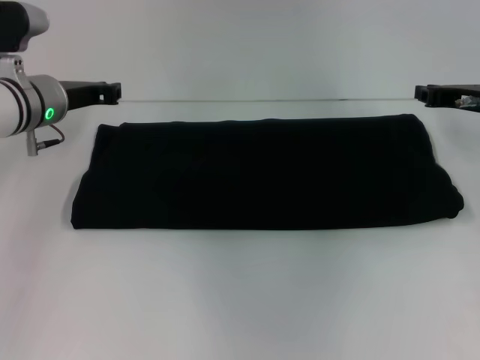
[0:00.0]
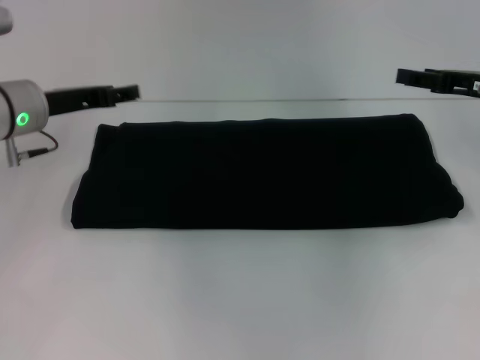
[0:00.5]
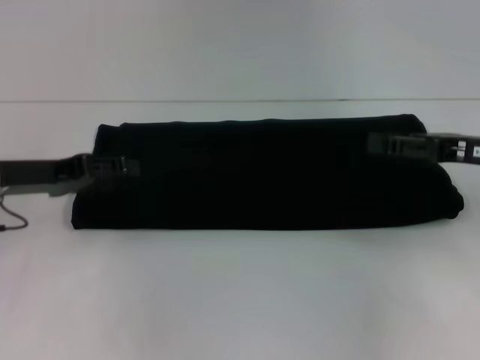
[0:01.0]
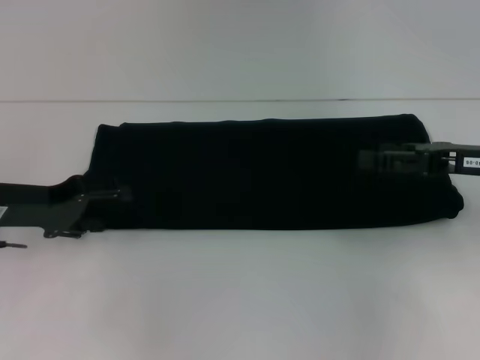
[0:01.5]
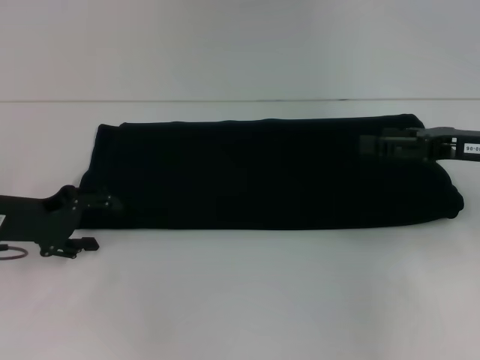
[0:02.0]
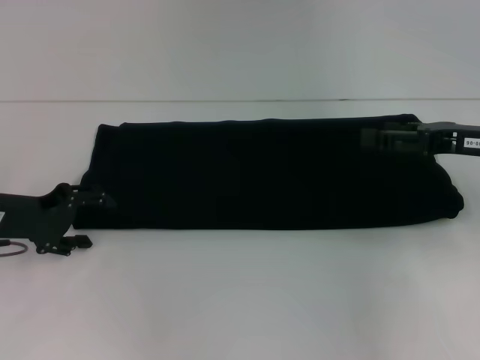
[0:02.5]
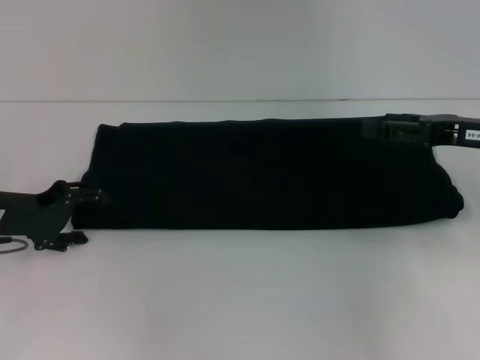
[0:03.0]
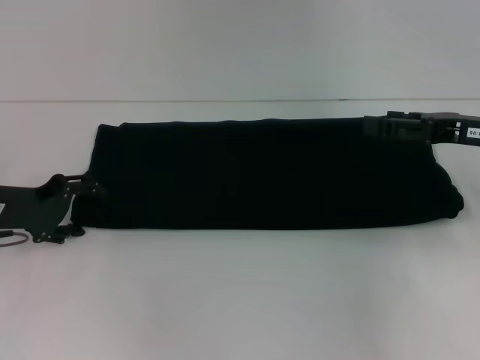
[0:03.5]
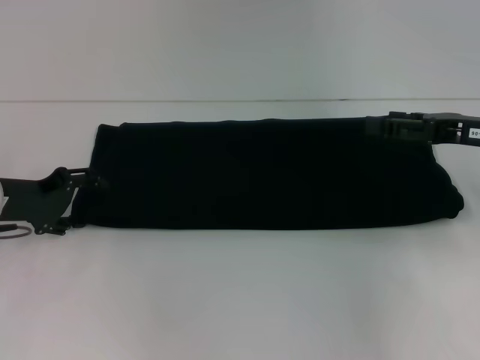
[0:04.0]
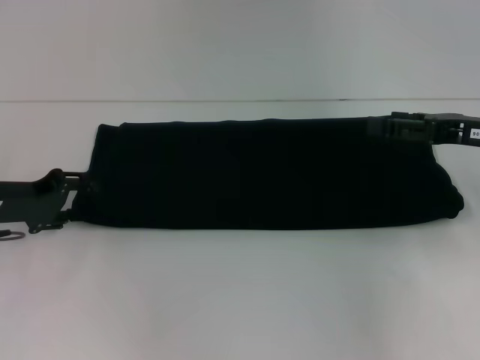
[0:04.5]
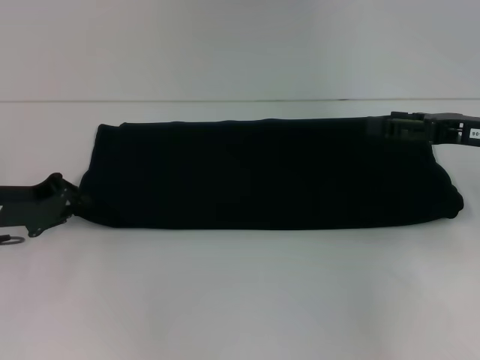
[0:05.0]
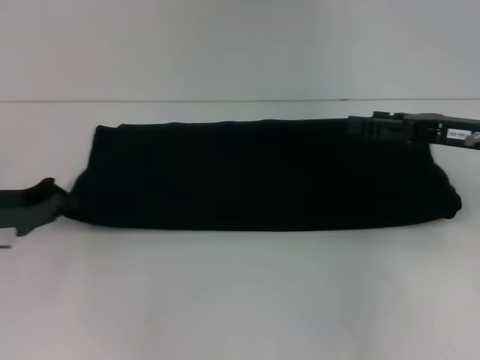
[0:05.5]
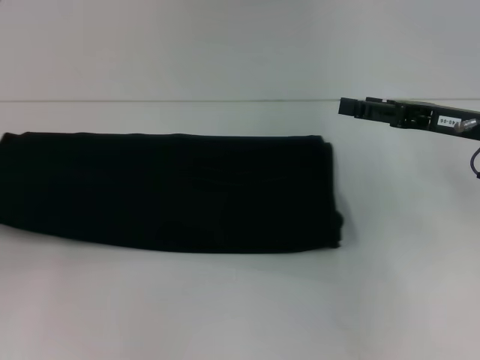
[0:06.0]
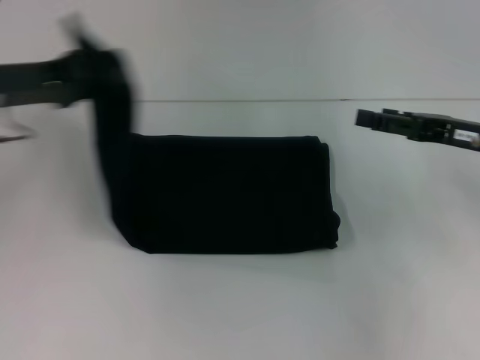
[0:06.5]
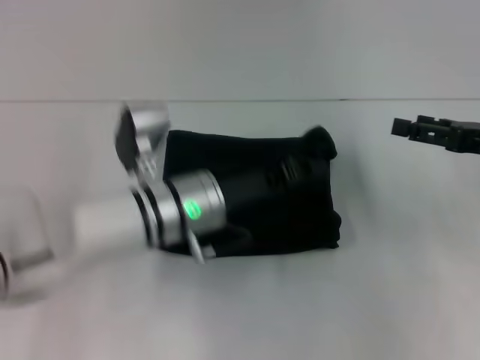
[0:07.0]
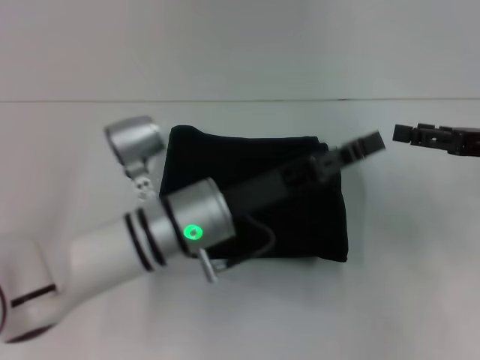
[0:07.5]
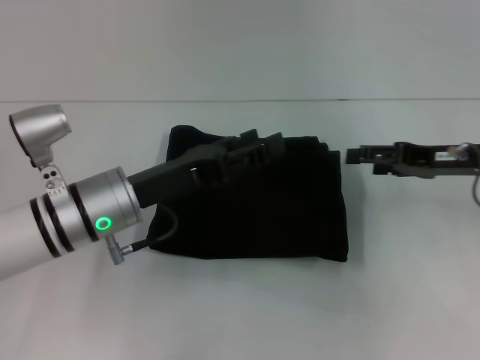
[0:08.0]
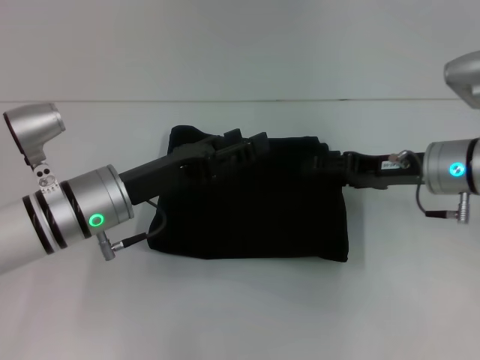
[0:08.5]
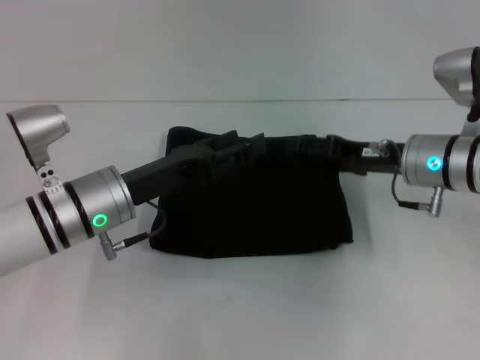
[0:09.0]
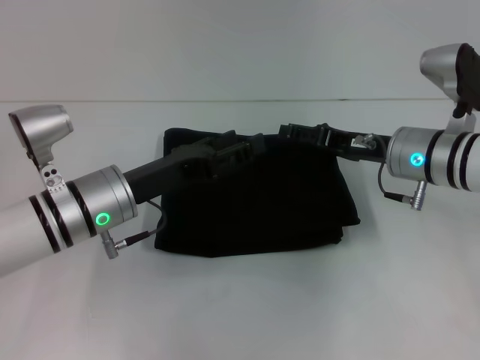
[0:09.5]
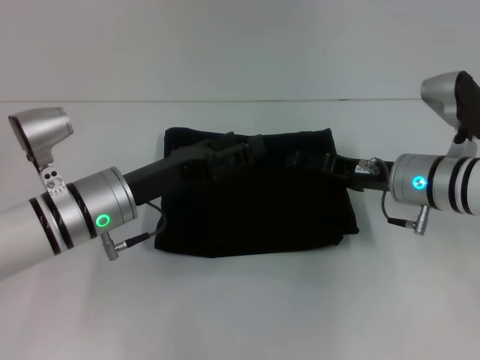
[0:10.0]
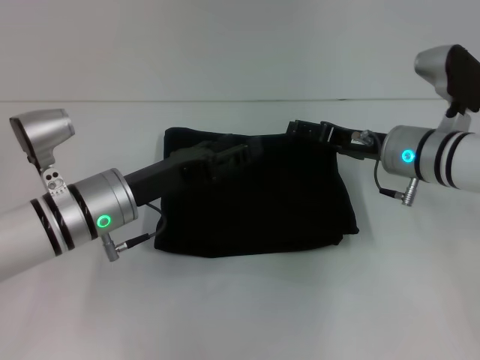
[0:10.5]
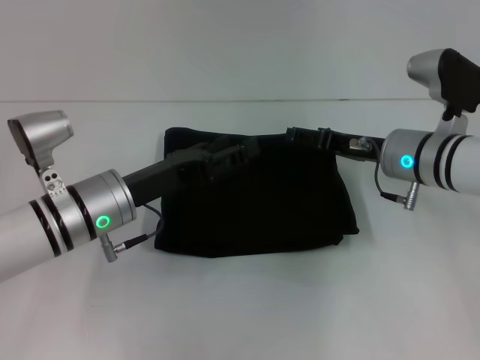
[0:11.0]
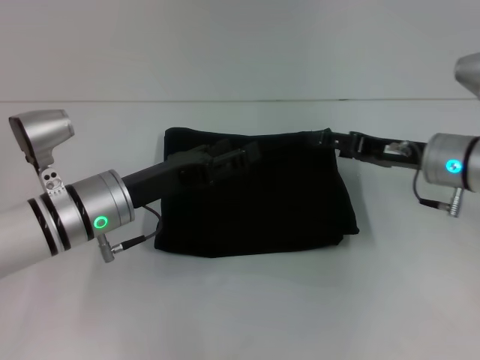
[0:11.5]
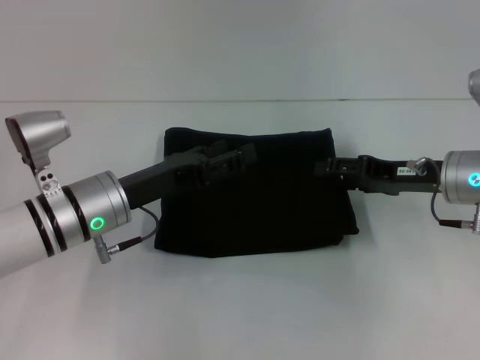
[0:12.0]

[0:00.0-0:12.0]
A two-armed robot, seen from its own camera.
Step, 0:00.0 to 0:07.0: Fold the clothes with your left hand.
0:00.0 to 0:02.0: The right gripper goes about 10 cm backward, and opens up, while the left gripper heads backward and to the left, covering about 15 cm, and opens its fingers.
0:02.0 to 0:04.0: The grippers move only a little.
0:04.0 to 0:06.0: The left gripper moves to the left and backward, roughly 15 cm, and closes its fingers.
0:06.0 to 0:08.0: The left gripper shifts roughly 25 cm to the right, and opens.
0:08.0 to 0:10.0: The right gripper moves to the left, about 10 cm.
0:10.0 to 0:12.0: The right gripper changes place by some 5 cm.

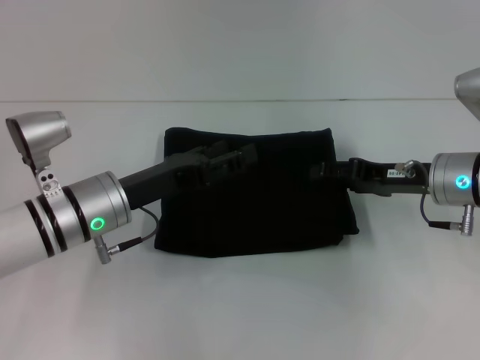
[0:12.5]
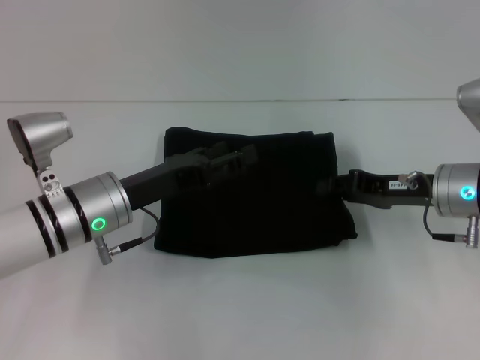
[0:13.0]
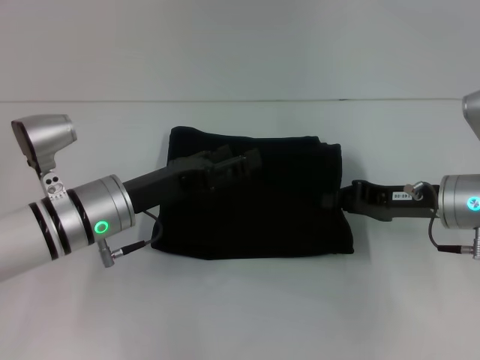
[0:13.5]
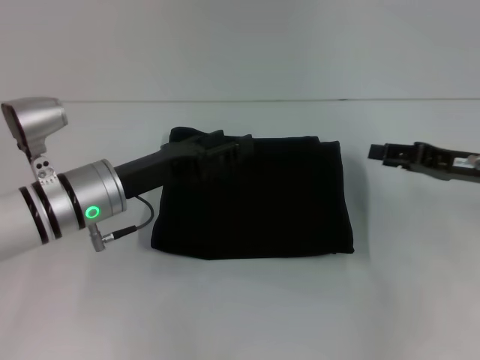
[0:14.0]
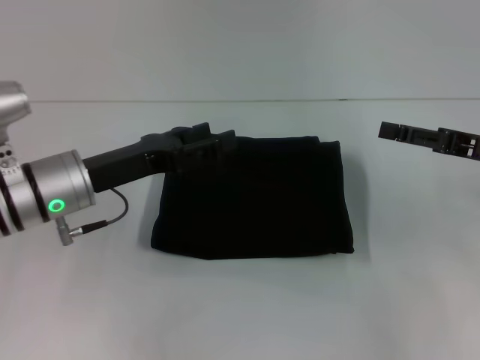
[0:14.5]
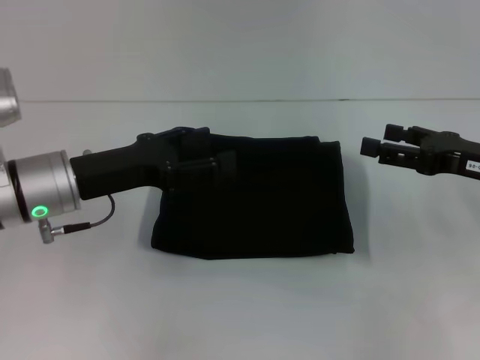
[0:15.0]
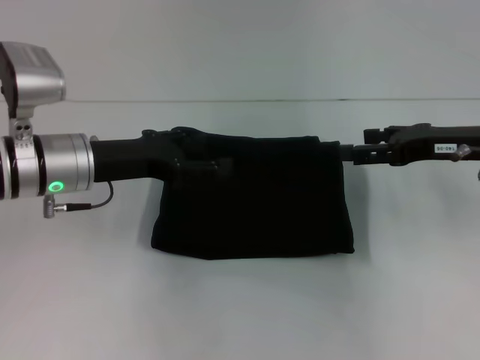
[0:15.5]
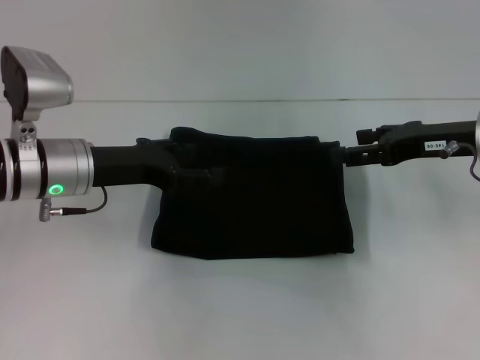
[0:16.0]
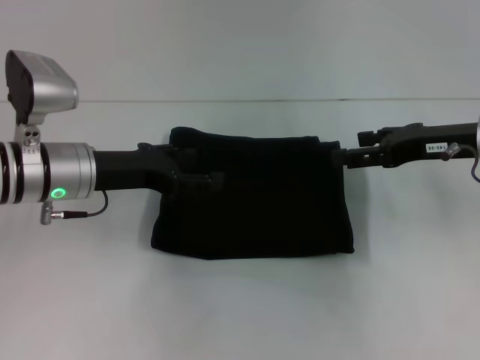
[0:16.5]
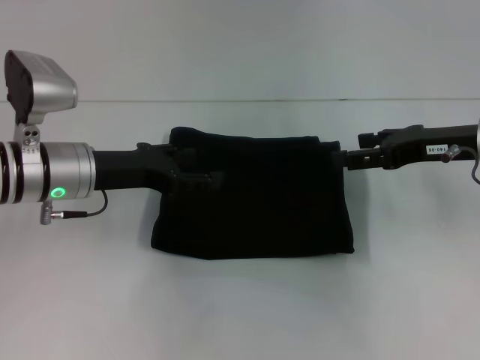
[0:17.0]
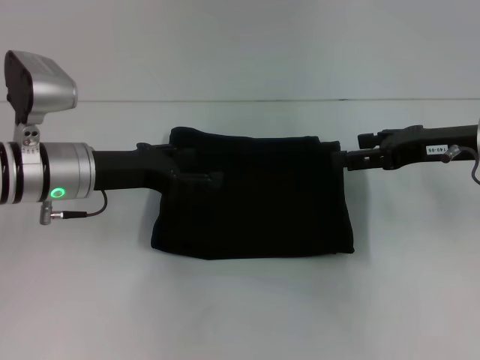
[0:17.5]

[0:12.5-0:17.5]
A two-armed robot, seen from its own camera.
0:12.5 to 0:15.0: The right gripper shifts some 5 cm to the right, and closes, then opens again. The left gripper moves about 5 cm.
0:15.0 to 0:17.5: The right gripper ends up some 5 cm from where it was.

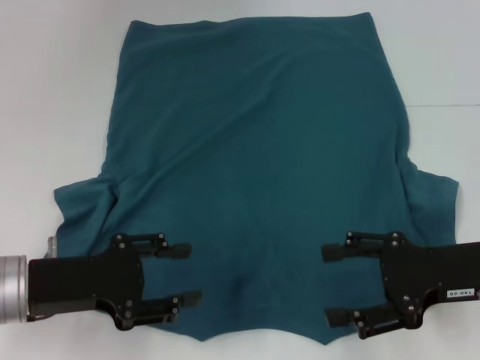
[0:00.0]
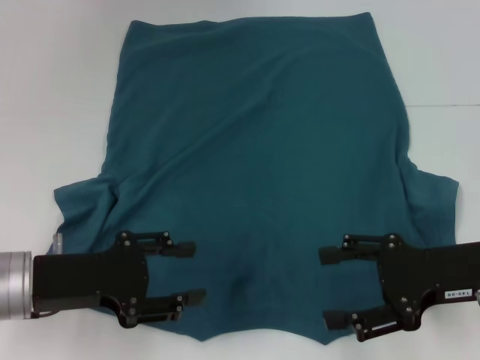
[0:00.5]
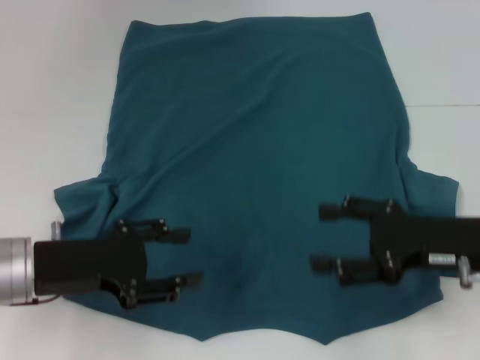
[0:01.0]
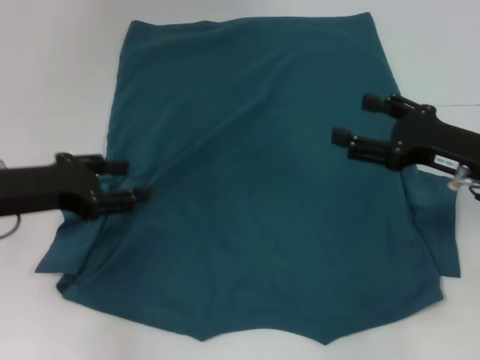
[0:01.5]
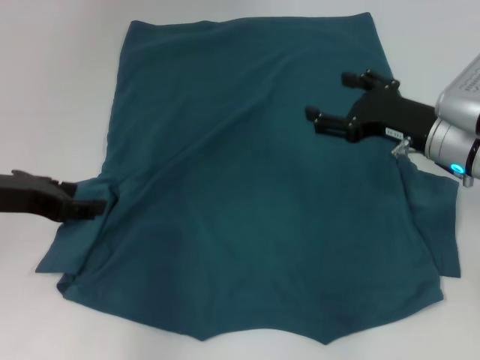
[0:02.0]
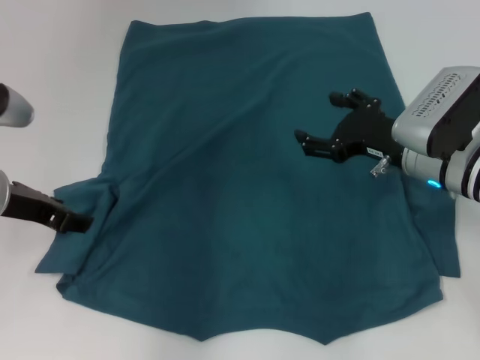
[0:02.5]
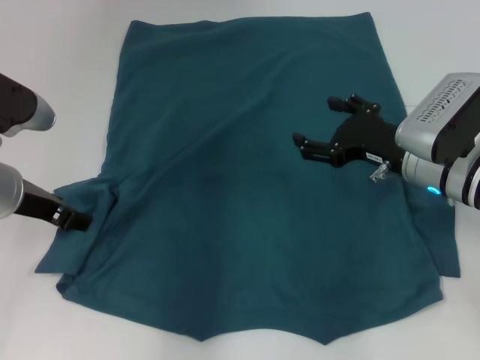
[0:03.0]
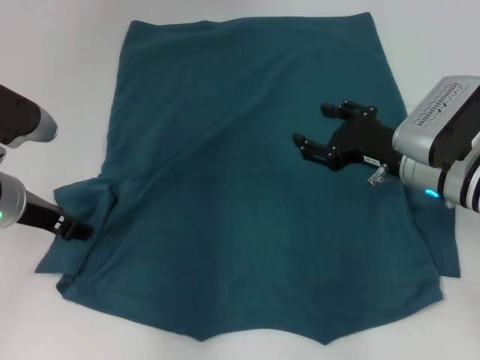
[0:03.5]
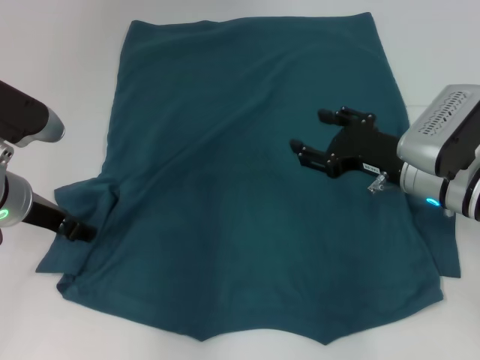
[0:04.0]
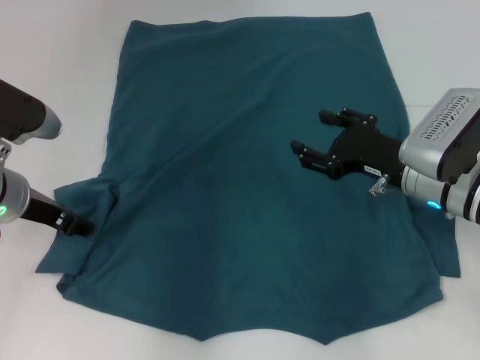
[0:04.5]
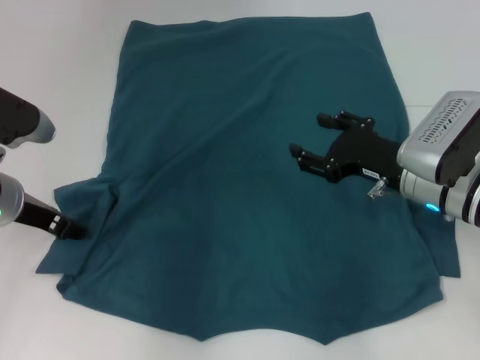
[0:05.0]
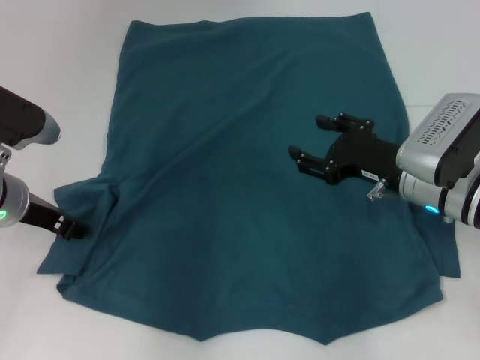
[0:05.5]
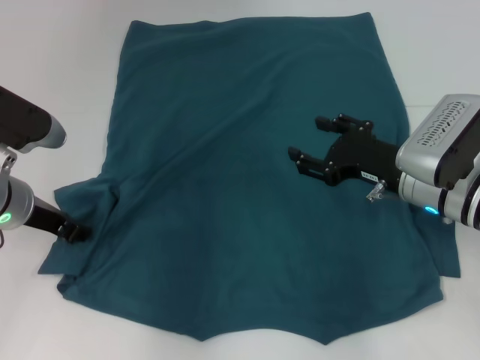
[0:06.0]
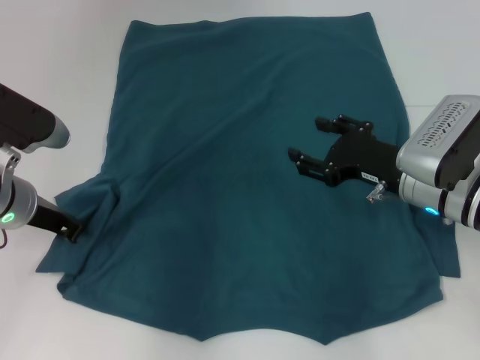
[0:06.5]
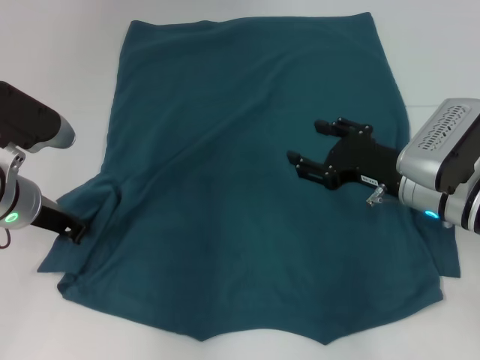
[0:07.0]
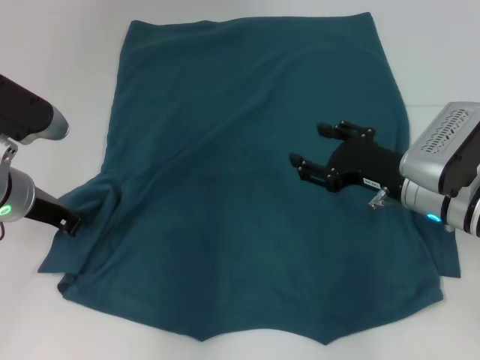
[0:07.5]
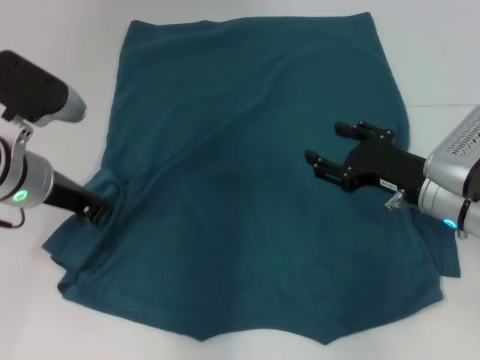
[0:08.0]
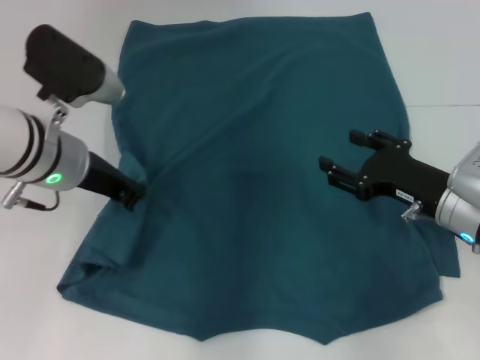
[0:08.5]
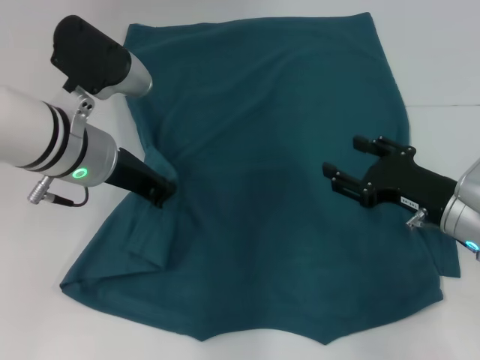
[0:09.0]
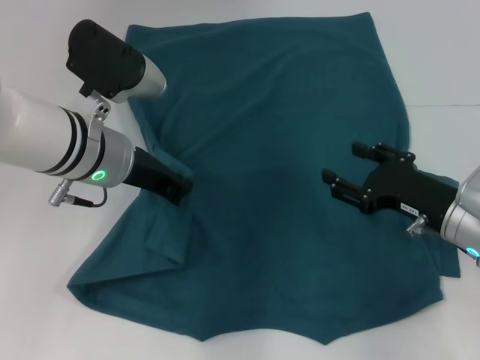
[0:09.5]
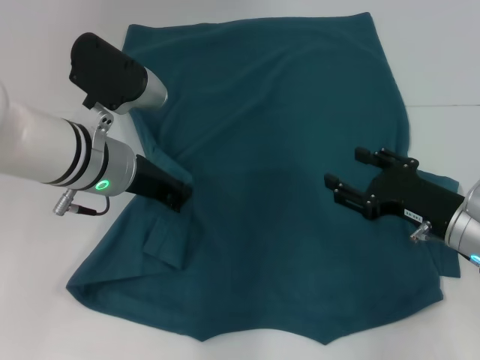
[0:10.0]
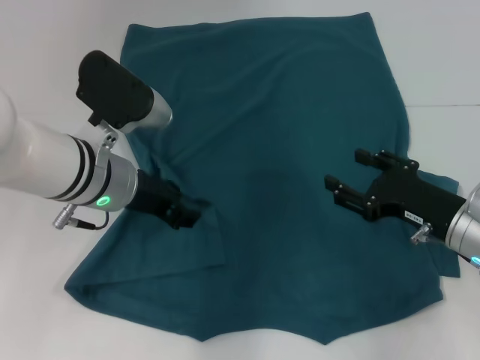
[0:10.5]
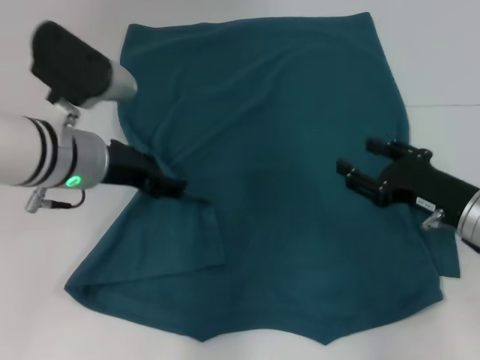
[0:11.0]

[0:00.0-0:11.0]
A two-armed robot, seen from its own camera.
Step, 0:00.0 to 0:10.5: Fold the bottom left sleeve with your left hand.
0:00.0 to 0:02.0: The left gripper goes about 10 cm upward and forward. The right gripper heads forward, covering approximately 10 cm.
0:02.0 to 0:03.5: The left gripper shifts by some 5 cm.
0:03.5 to 0:05.5: The grippers make only small movements.
0:05.5 to 0:07.5: The left gripper closes its fingers.
0:07.5 to 0:09.0: The left gripper moves to the right and upward, roughly 10 cm.
0:09.0 to 0:11.0: The left gripper opens its fingers.
